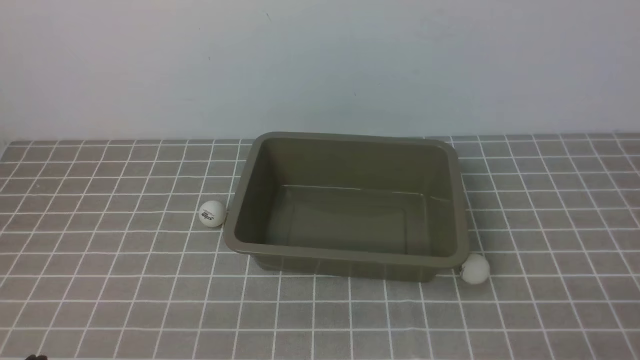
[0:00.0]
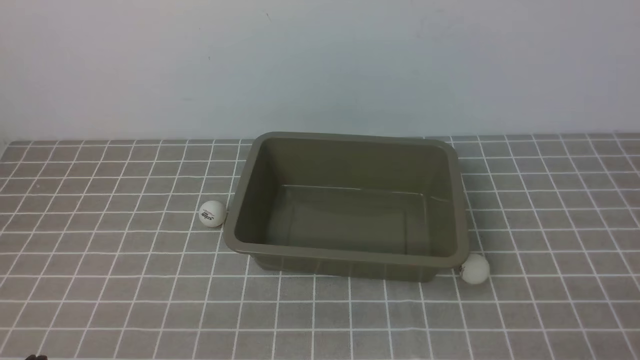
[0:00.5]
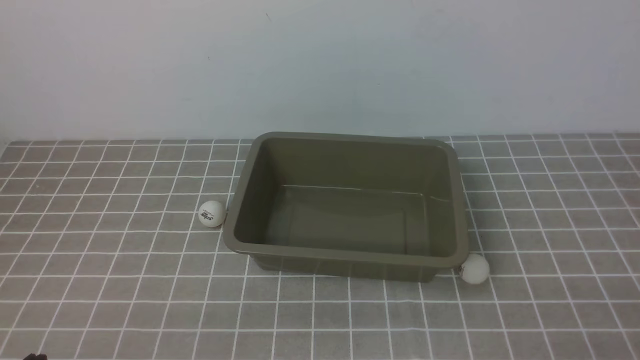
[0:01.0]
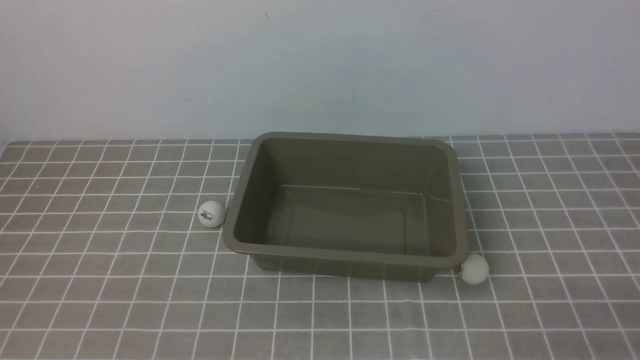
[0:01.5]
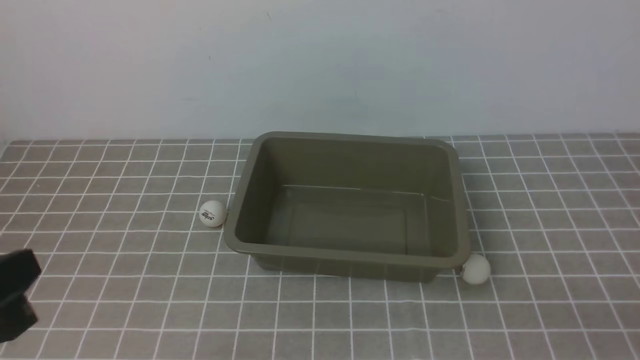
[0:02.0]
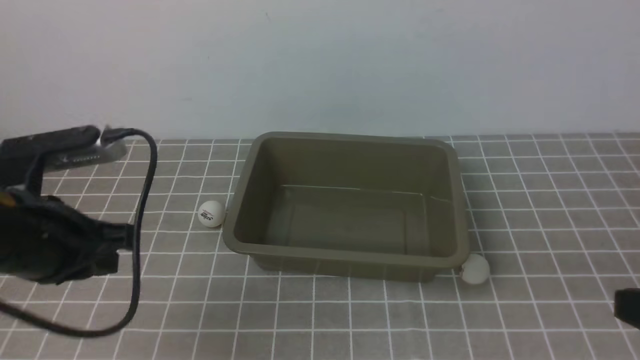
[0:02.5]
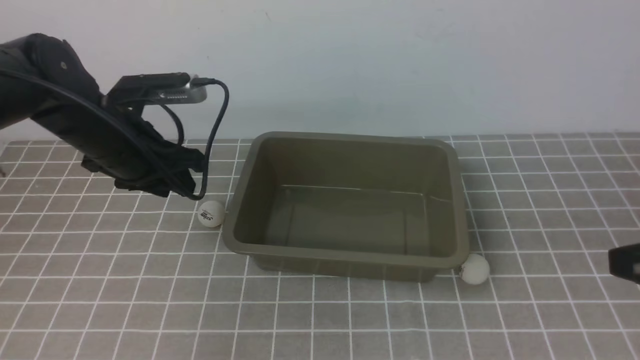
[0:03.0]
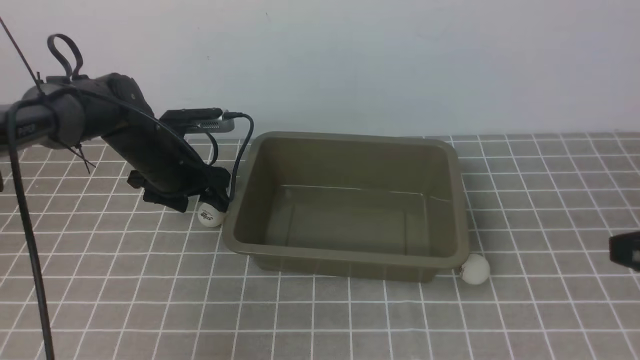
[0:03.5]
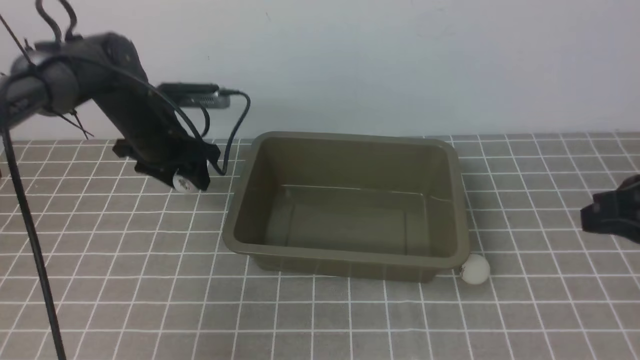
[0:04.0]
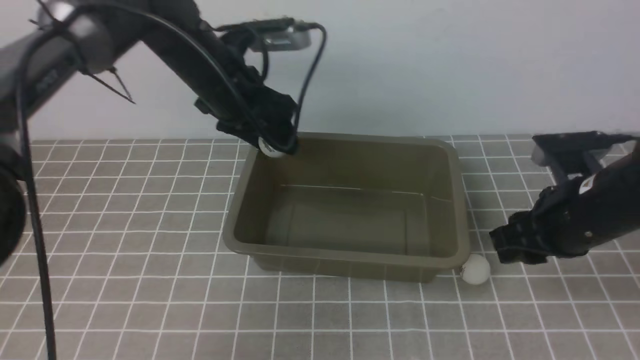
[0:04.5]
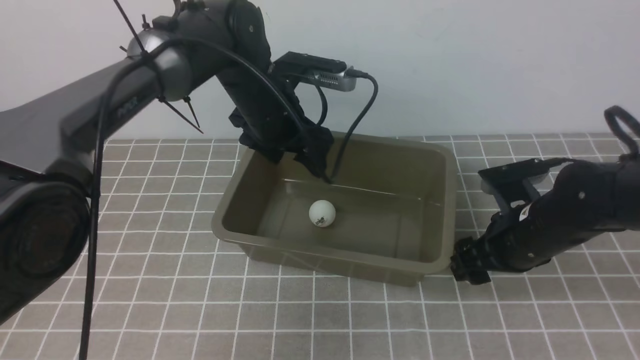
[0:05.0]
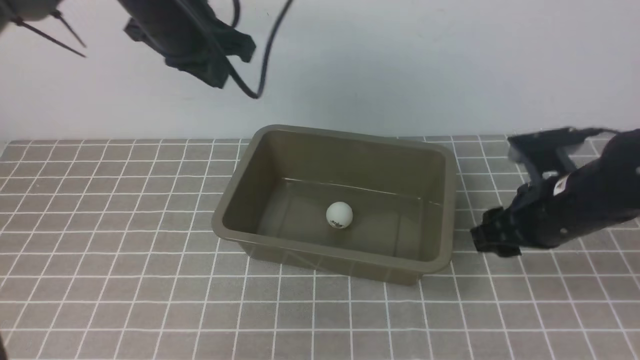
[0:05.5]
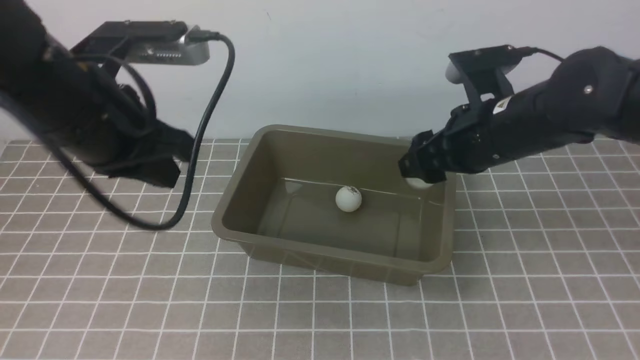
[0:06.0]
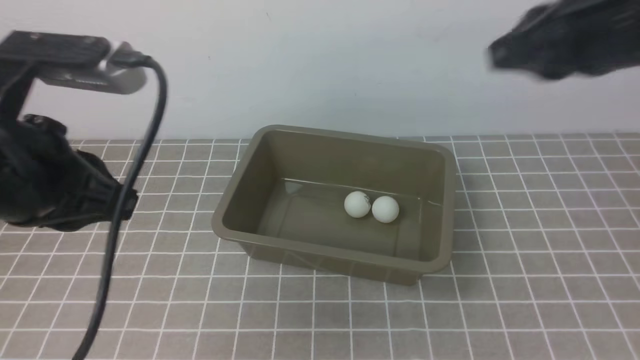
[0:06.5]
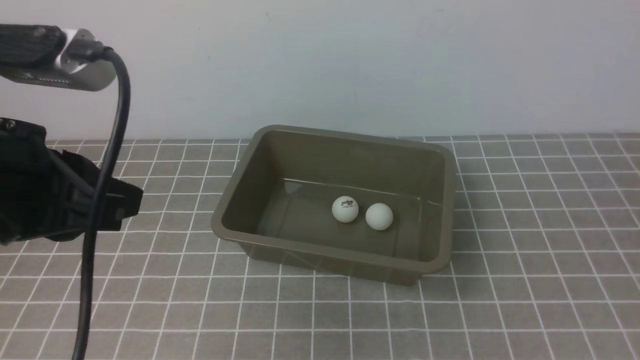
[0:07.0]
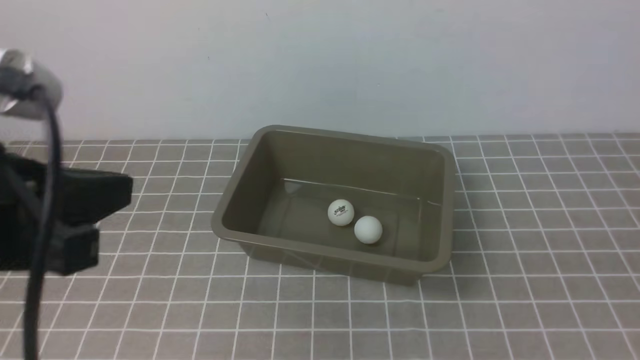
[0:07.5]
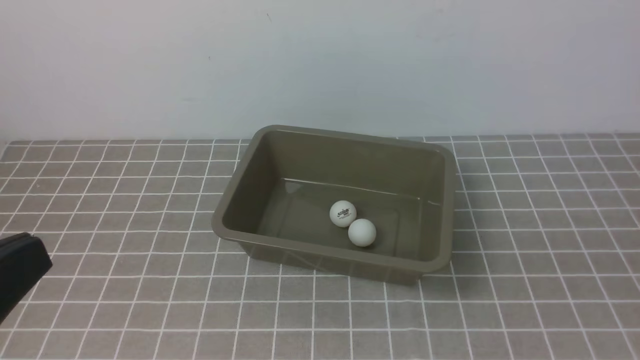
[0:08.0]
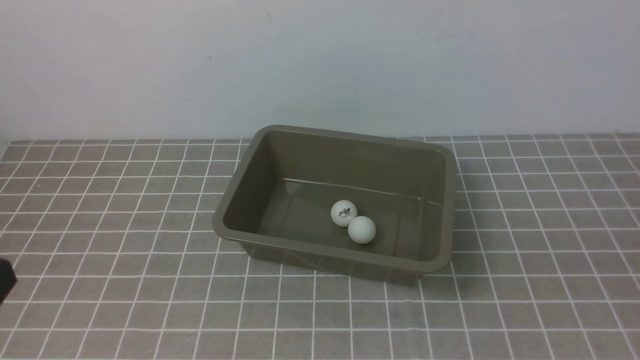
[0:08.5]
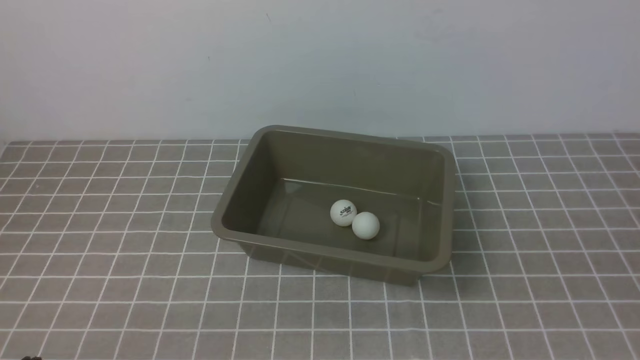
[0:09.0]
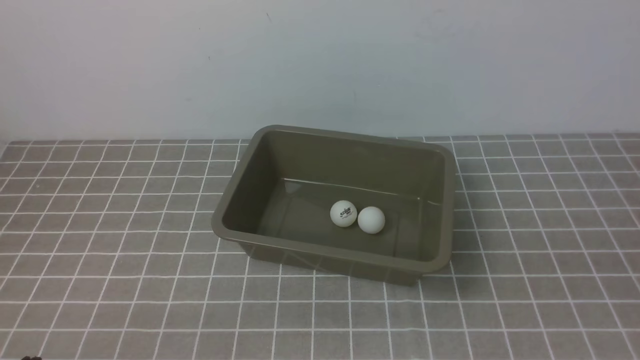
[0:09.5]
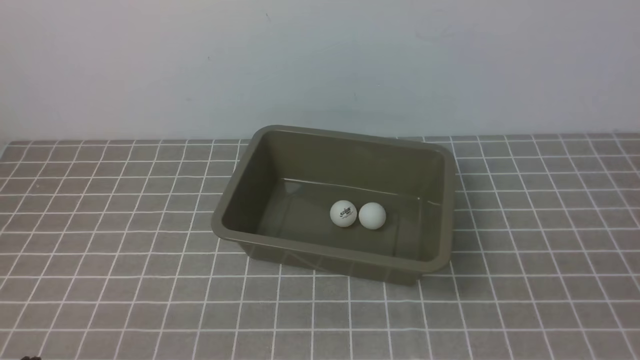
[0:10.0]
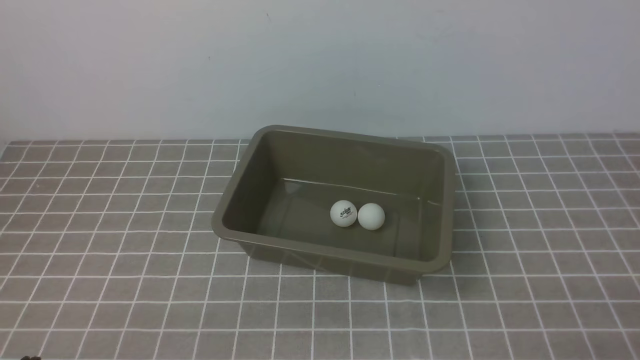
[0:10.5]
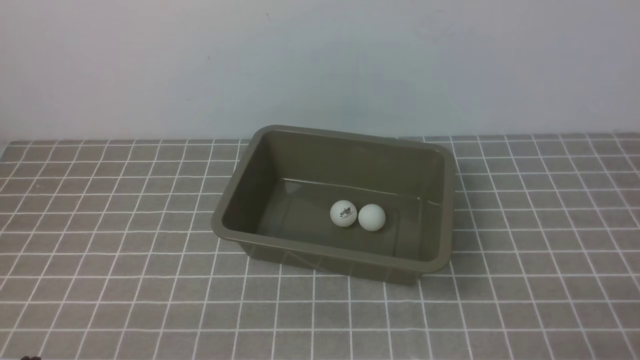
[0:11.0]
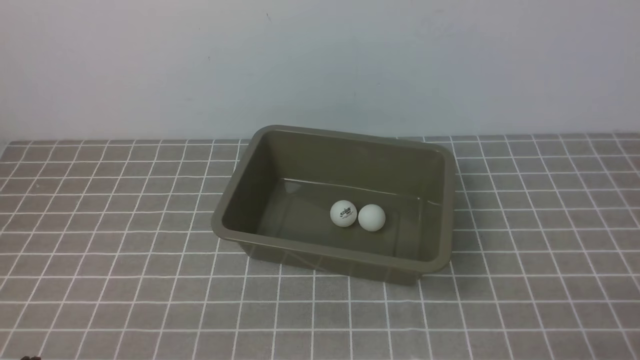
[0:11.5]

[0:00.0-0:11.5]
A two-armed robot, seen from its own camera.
Step, 0.0 to 4.0 s: use the left arm to clamp the table tennis ball closest to it.
Step, 5.0 to 5.5 s: use the right arm to clamp the table tennis ball closest to it.
0.0 to 2.0 s: The left gripper is displaced upward by roughly 15 cm.
2.0 to 4.0 s: The left gripper heads forward, covering some 35 cm, and opens up. The right gripper moves forward and upward, about 20 cm.
4.0 to 6.0 s: The left gripper moves backward and upward, about 20 cm, and closes up. The right gripper goes roughly 15 cm forward and to the left, reaches roughly 15 cm downward, then returns, and opens up.
6.0 to 7.5 s: The right gripper goes roughly 35 cm backward and to the right, and closes up. Meanwhile the left gripper moves backward, roughly 15 cm.
7.5 to 9.5 s: The left gripper is displaced downward by approximately 20 cm.

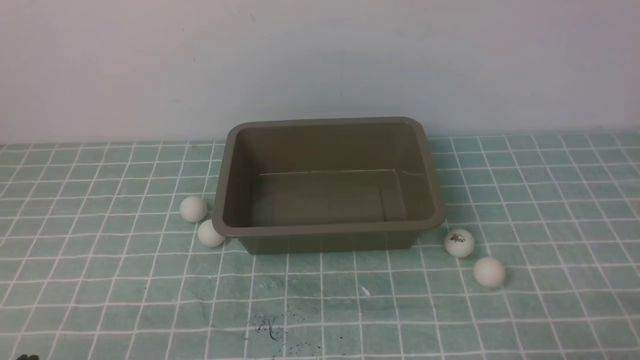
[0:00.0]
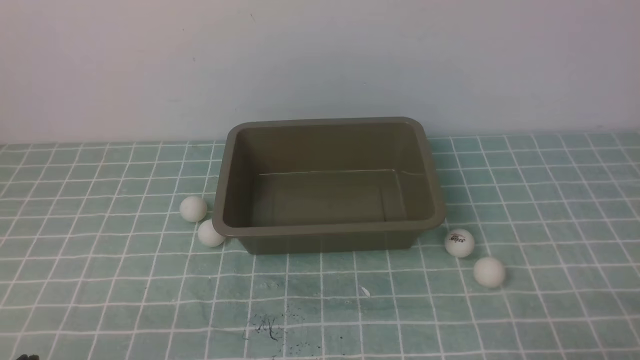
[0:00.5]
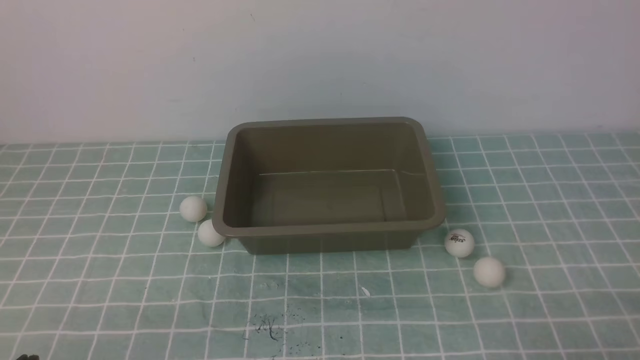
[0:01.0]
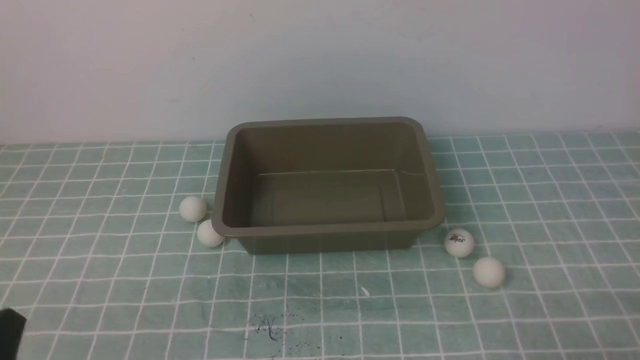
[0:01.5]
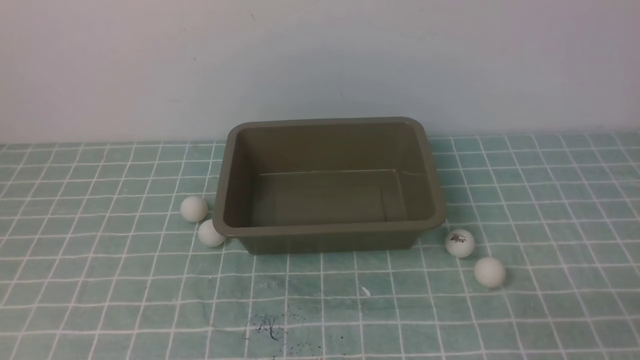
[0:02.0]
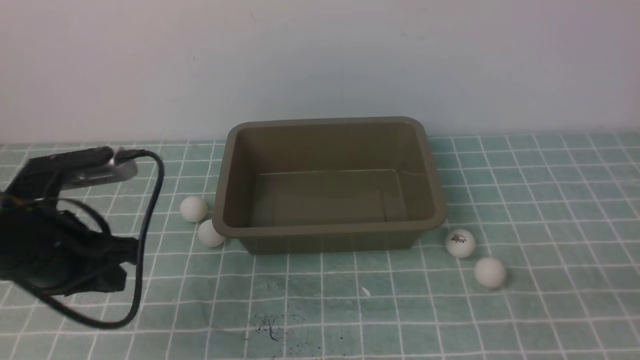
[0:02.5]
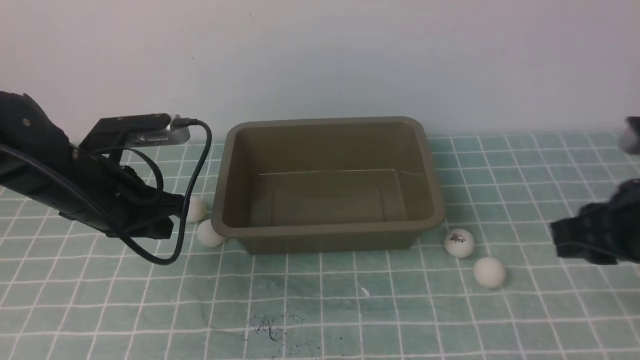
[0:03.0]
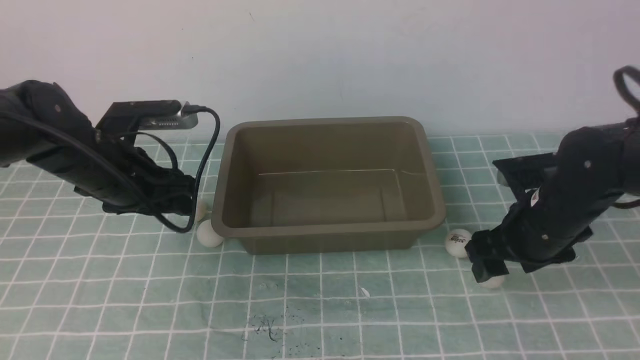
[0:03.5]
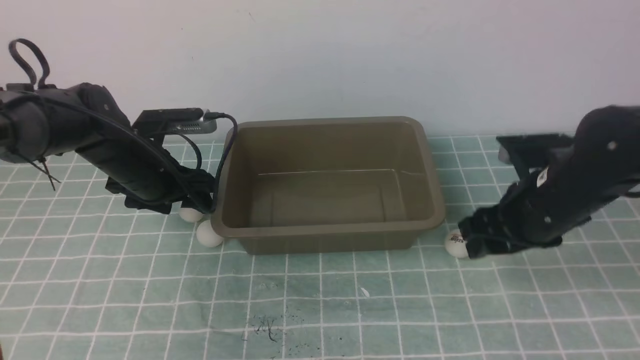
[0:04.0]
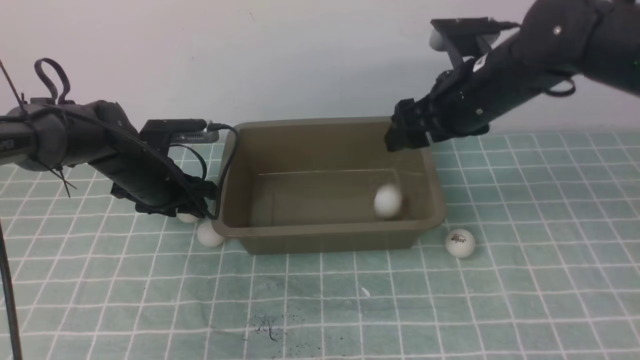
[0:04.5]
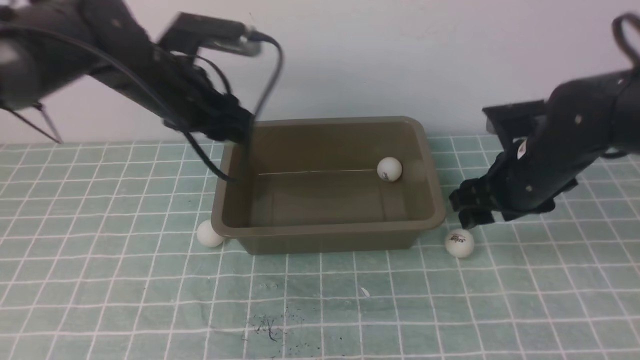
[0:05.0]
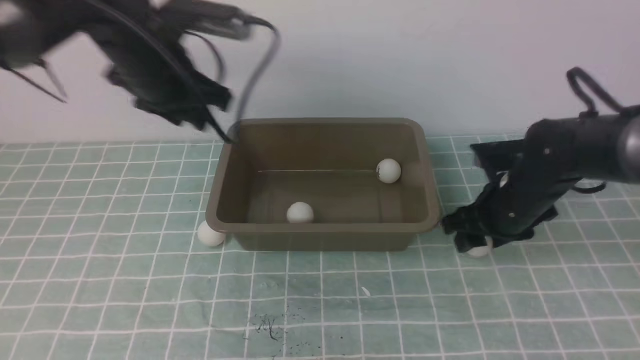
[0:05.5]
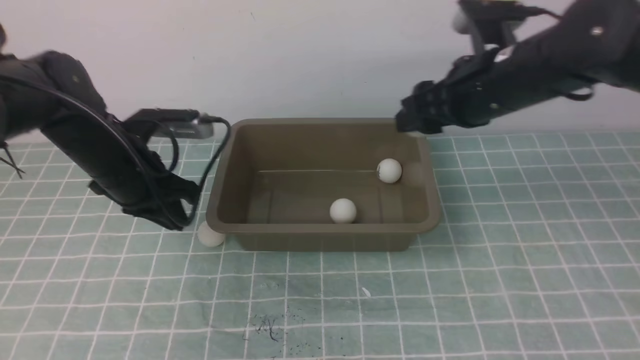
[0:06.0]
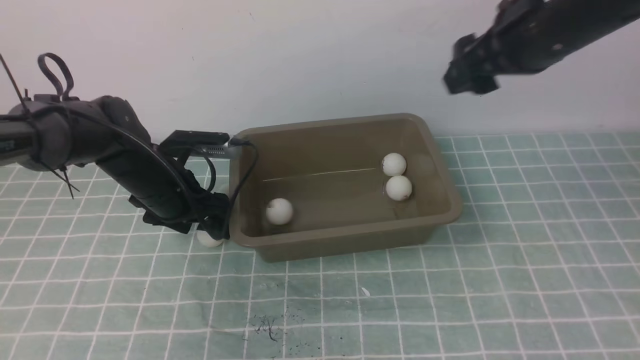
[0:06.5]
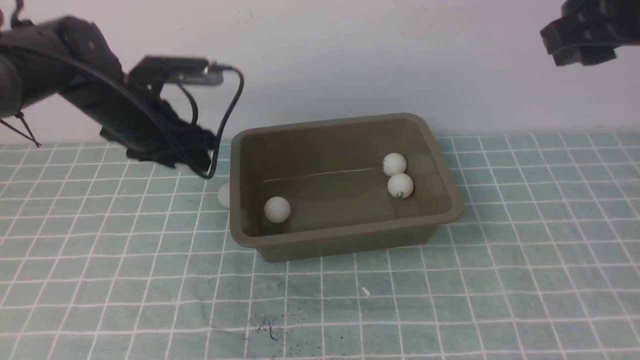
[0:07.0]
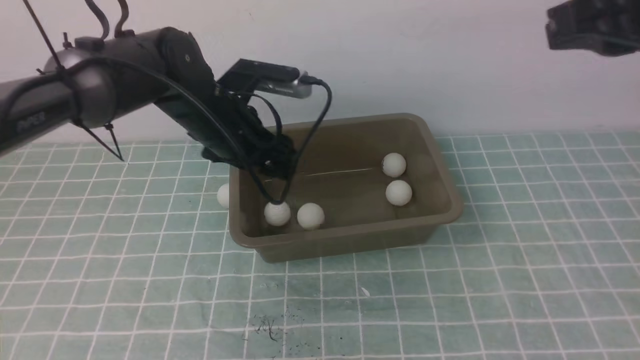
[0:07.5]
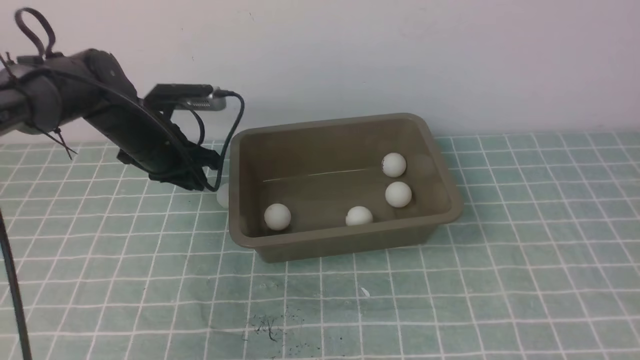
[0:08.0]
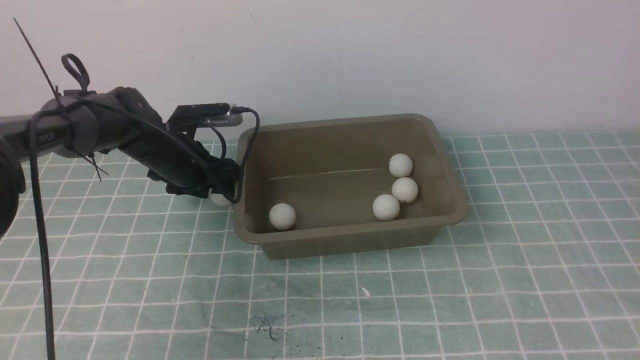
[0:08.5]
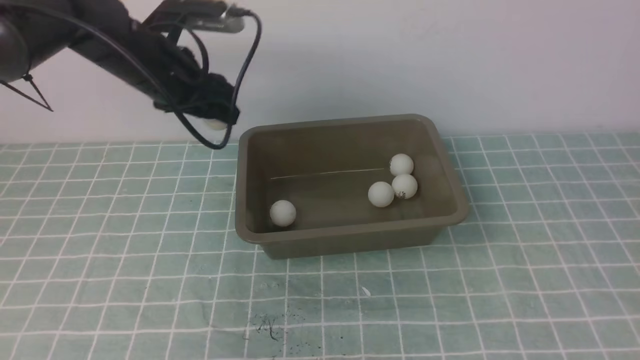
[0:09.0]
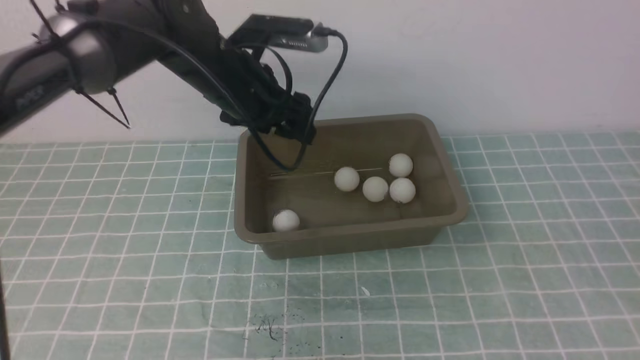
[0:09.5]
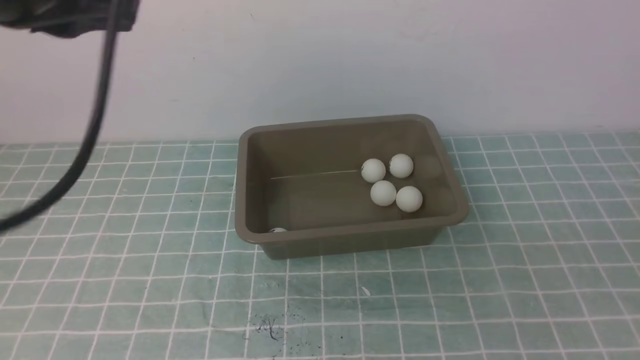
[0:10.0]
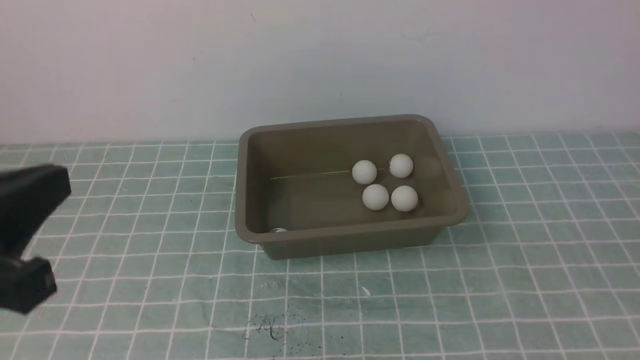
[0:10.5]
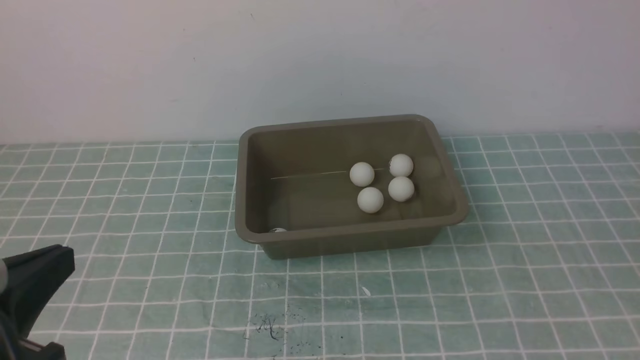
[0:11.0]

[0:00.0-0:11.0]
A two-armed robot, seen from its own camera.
Step, 0.0 to 4.0 s: use the right arm to clamp the table tennis ball closest to it.
Step, 8.0 to 8.5 s: use the left arm to clamp the table tennis ball closest to it.
2.0 to 3.5 s: Both grippers travel together forward, some 25 cm. The left gripper opens. The right gripper opens up.
3.5 to 5.5 s: The left gripper moves upward, approximately 10 cm, while the right gripper reaches roughly 10 cm upward, then returns.
5.5 to 7.5 s: The left gripper travels downward and back again, approximately 15 cm each way. The right gripper is displaced upward and backward by some 30 cm, and closes its fingers.
7.5 to 9.0 s: The left gripper goes downward and returns, about 10 cm each way. The right gripper goes some 15 cm backward and to the right.
9.0 to 11.0 s: The right gripper heads backward and downward, covering approximately 10 cm. The left gripper moves backward, about 35 cm, and closes.
